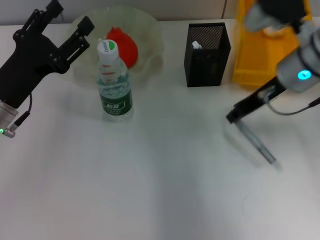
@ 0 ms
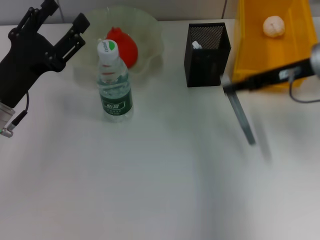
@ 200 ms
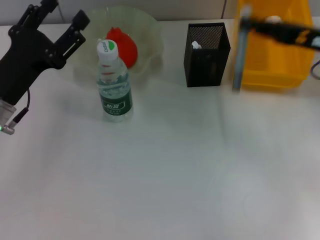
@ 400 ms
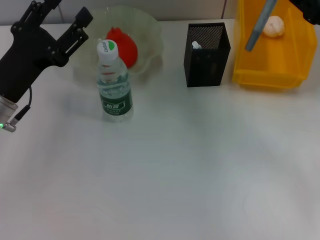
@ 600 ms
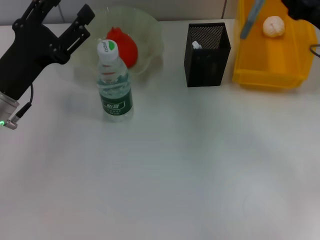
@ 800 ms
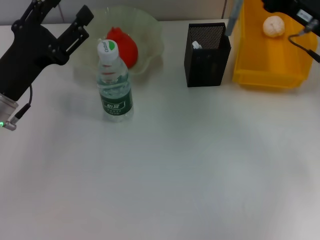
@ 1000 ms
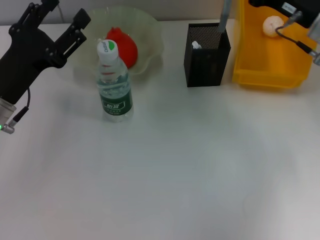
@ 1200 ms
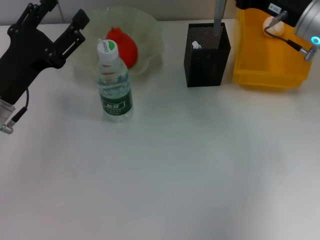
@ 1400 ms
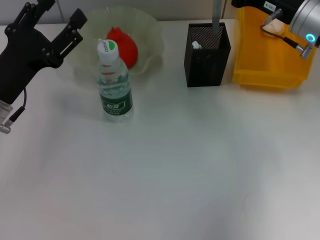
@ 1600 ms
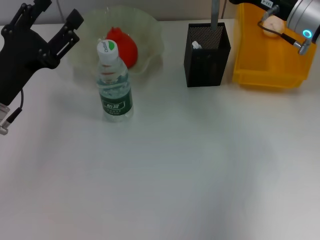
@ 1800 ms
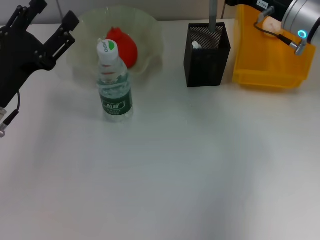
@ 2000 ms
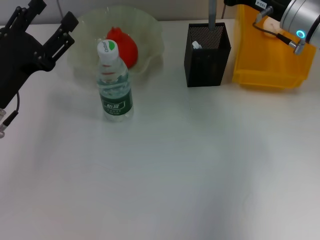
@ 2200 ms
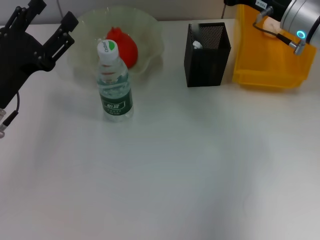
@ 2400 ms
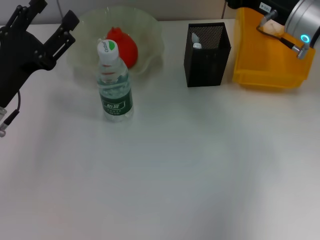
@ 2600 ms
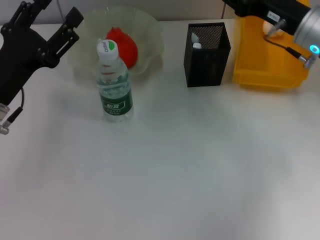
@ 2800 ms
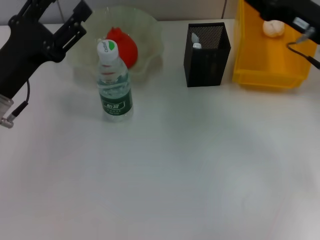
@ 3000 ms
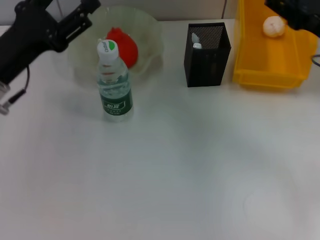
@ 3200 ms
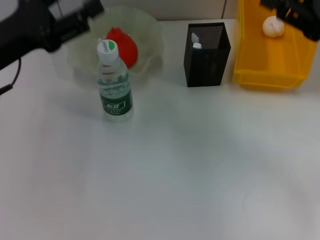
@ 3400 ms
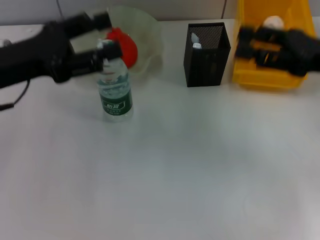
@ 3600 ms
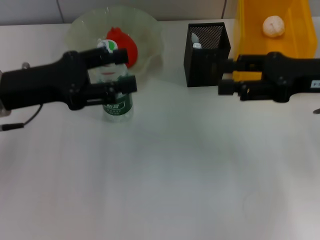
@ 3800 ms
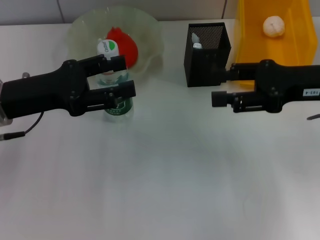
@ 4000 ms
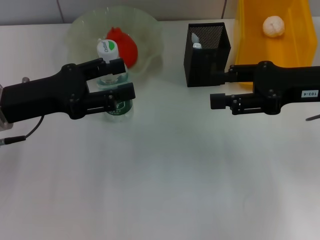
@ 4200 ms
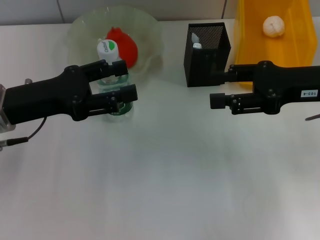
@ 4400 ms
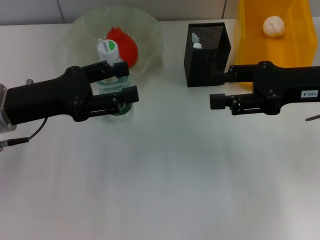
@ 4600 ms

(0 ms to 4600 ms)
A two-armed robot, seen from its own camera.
Step, 0 ms - 2400 ms: Place the gray glue into the pen holder with the right hand.
0 ms - 1600 ms: The right gripper goes to the right and returns, roughly 10 cm each way.
1600 ms - 3000 ms: The right gripper ends up approximately 5 cm from where it was, and opens its fingers.
3000 ms - 4600 ms: The right gripper opens its fingers.
